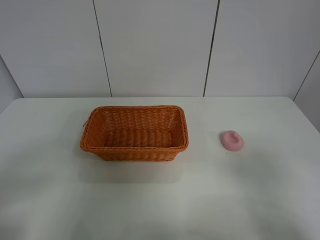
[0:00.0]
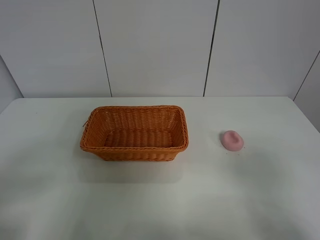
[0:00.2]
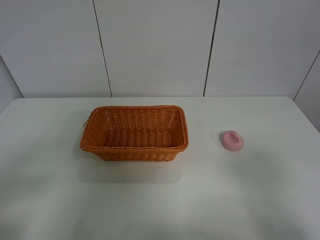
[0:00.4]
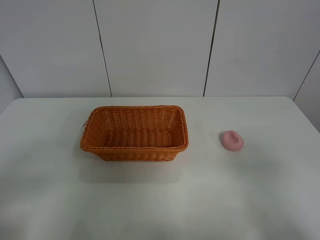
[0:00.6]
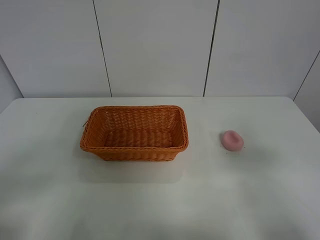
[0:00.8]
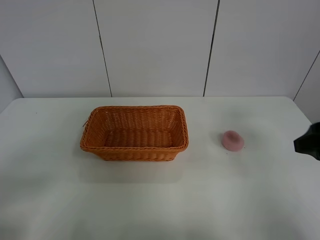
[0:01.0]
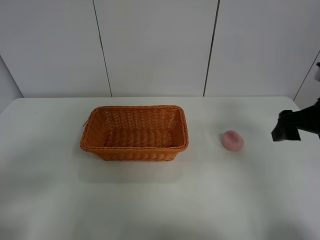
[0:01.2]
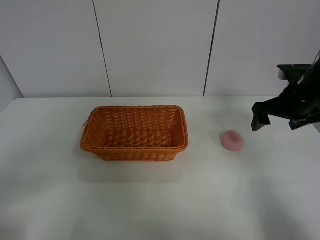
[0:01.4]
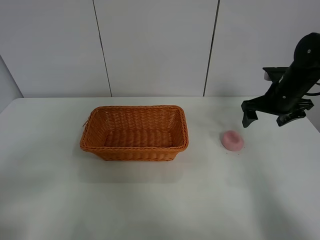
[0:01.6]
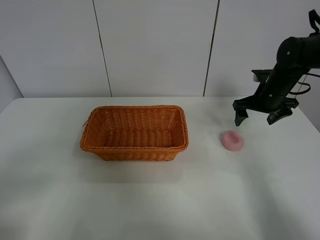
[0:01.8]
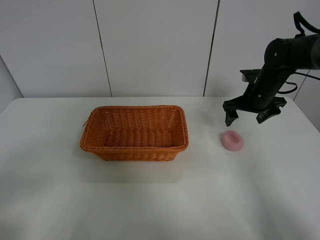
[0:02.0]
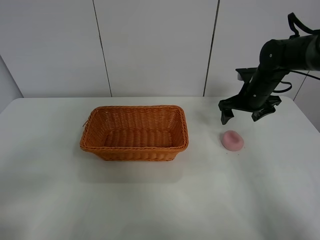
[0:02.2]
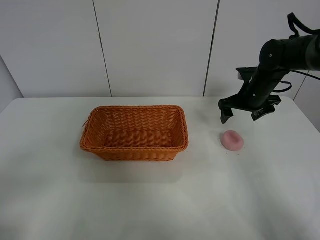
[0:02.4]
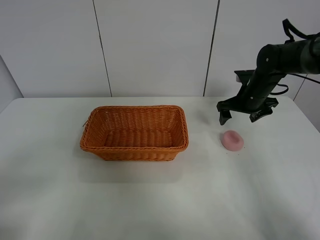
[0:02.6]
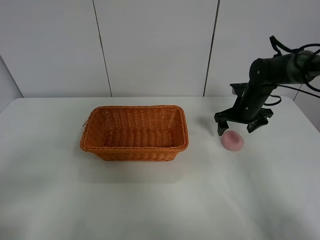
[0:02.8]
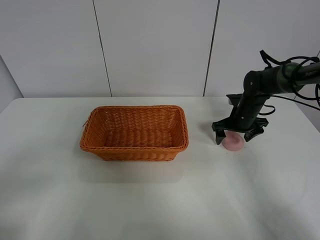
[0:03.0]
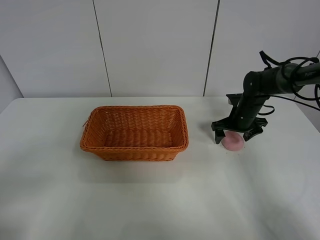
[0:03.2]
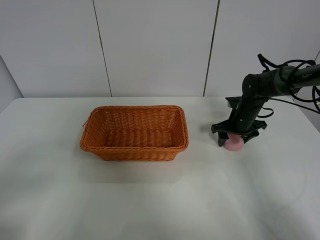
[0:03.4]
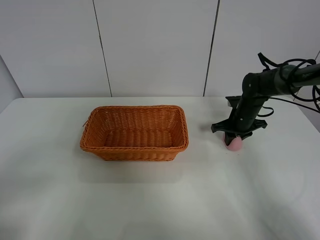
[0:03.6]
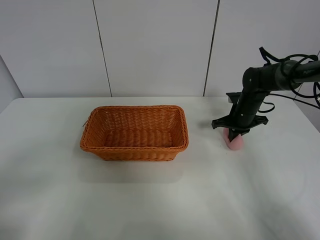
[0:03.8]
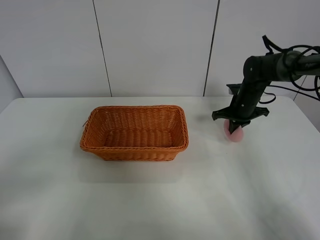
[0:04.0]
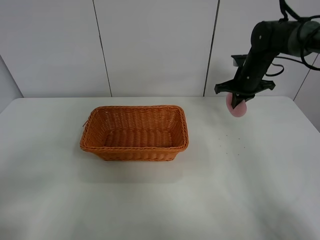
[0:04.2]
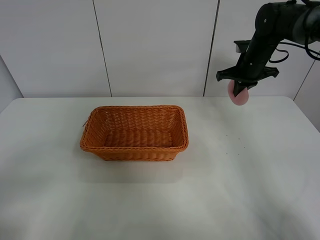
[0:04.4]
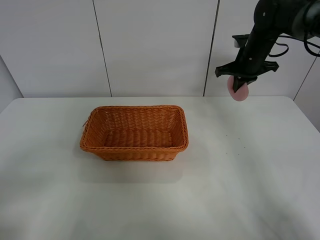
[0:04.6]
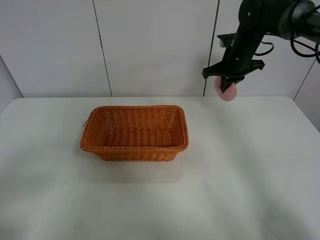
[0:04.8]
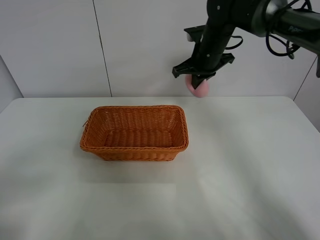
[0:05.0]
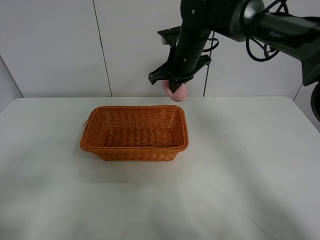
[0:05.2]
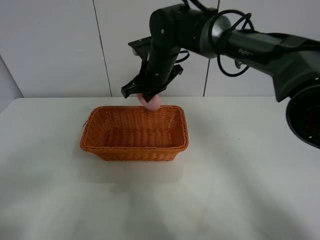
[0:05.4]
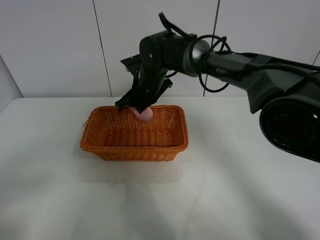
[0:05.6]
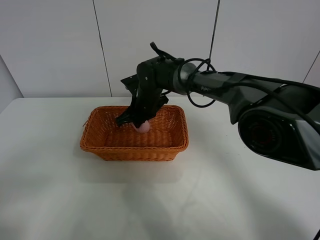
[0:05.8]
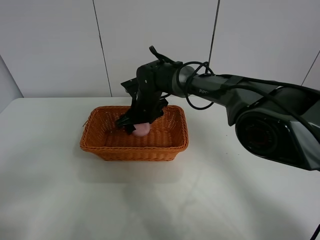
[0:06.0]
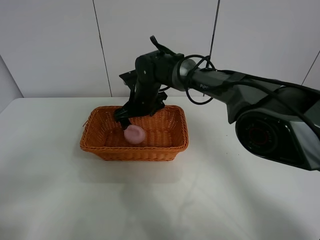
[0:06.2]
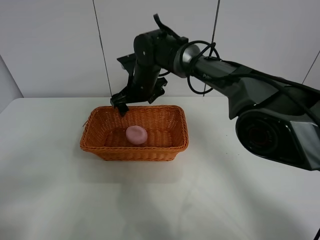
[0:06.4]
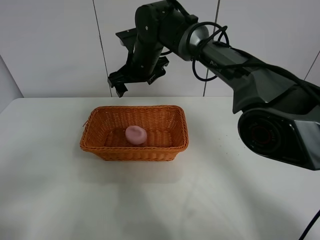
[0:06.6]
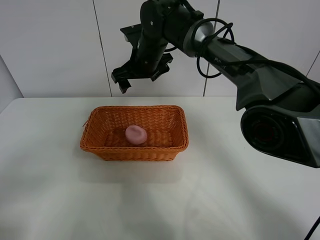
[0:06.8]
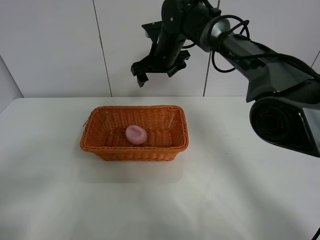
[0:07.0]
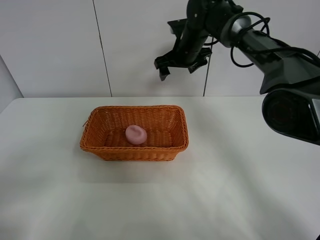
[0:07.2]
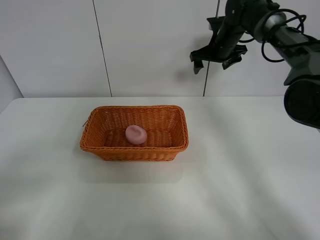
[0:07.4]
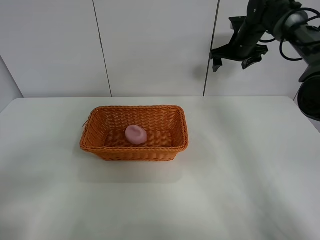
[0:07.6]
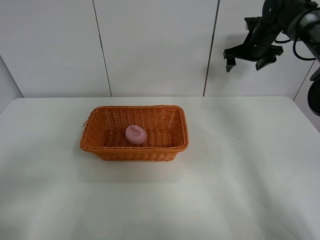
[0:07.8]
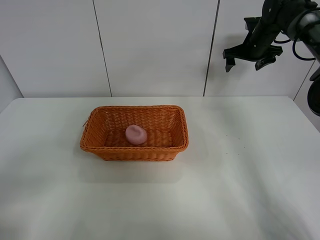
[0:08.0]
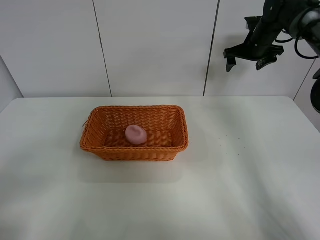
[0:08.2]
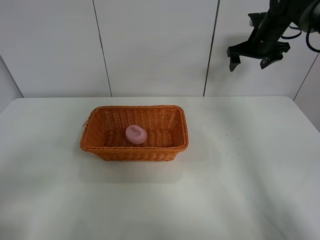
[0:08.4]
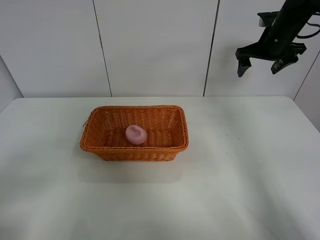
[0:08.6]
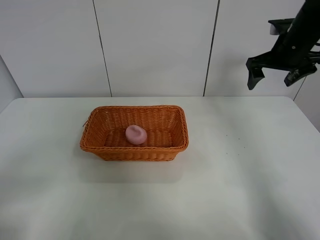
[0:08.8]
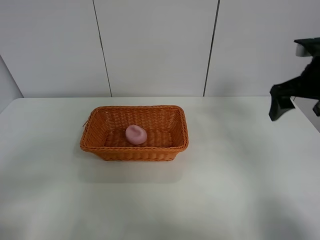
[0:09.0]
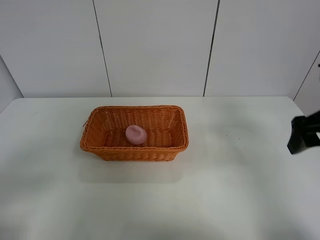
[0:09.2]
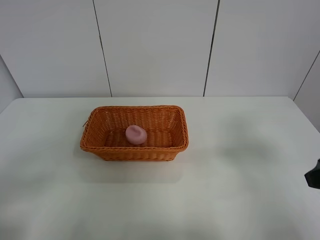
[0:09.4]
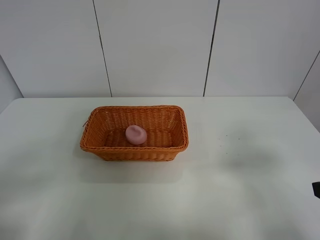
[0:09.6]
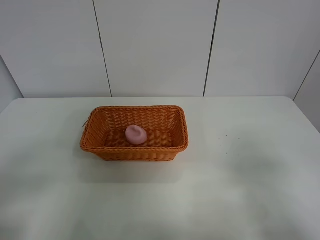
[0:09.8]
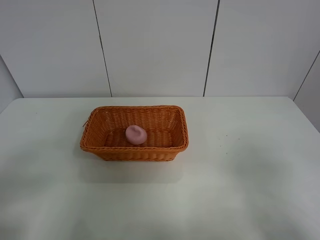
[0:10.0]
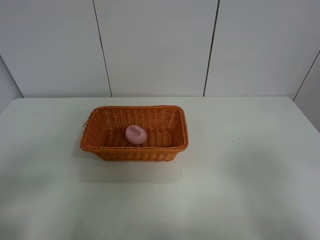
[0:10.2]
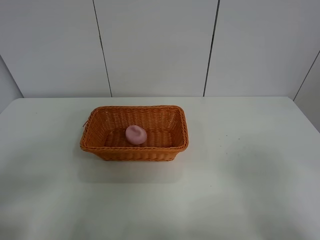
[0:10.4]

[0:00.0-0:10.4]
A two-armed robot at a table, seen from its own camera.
Step, 0:00.0 to 0:03.6: Grasp the peach with right gripper.
Step, 0:03.8 to 0:06.8: Place the peach in the basket with right gripper.
0:00.0 to 0:01.4: The right gripper goes about 35 cm forward.
0:01.4 to 0:03.0: The right gripper is displaced downward and forward by about 15 cm.
0:03.0 to 0:04.4: The right gripper is displaced upward by roughly 15 cm, and closes up.
0:04.4 to 0:06.0: The right gripper moves to the left, approximately 25 cm, and opens its fingers.
0:06.0 to 0:07.4: The right gripper heads to the right, upward and forward, covering about 25 cm.
0:07.4 to 0:09.0: The right gripper shifts about 25 cm backward.
0:09.0 to 0:10.4: The right gripper travels backward by approximately 25 cm.
